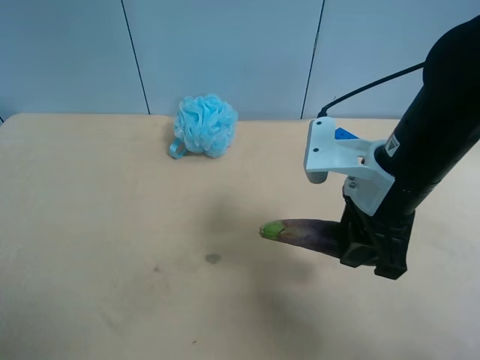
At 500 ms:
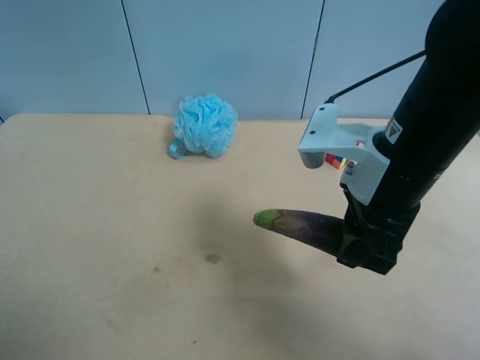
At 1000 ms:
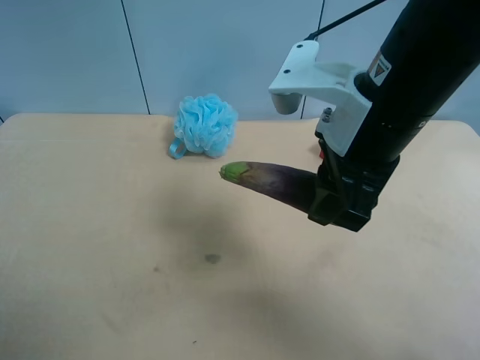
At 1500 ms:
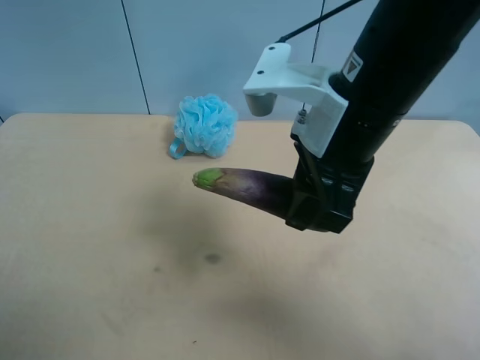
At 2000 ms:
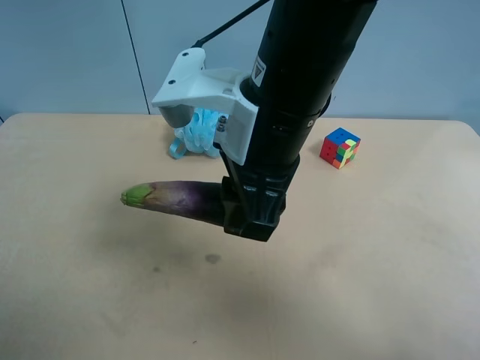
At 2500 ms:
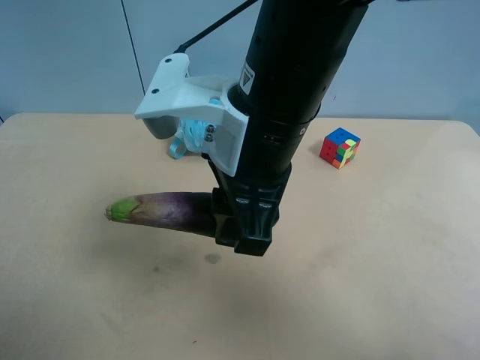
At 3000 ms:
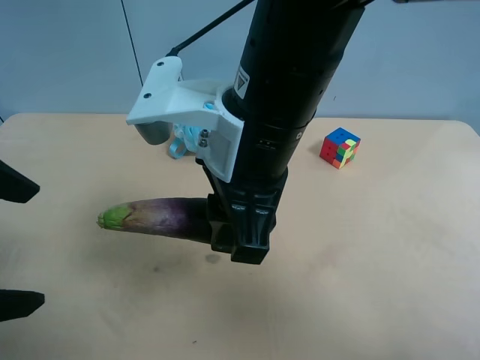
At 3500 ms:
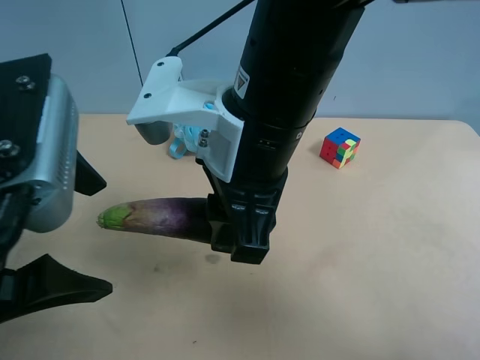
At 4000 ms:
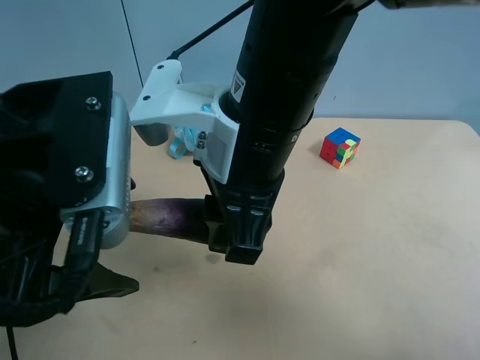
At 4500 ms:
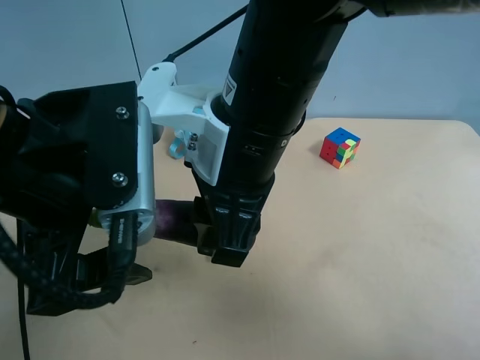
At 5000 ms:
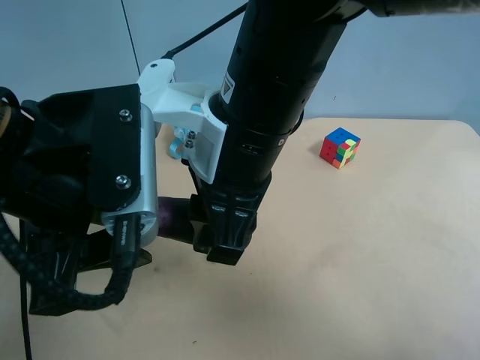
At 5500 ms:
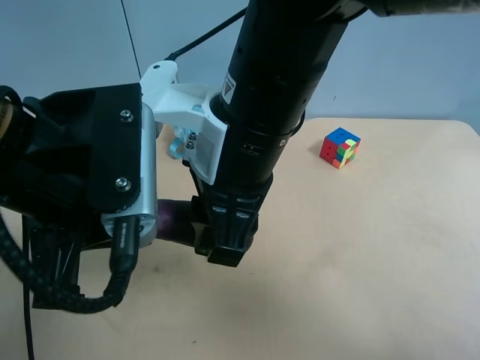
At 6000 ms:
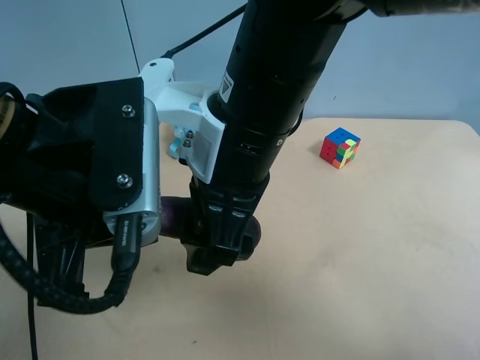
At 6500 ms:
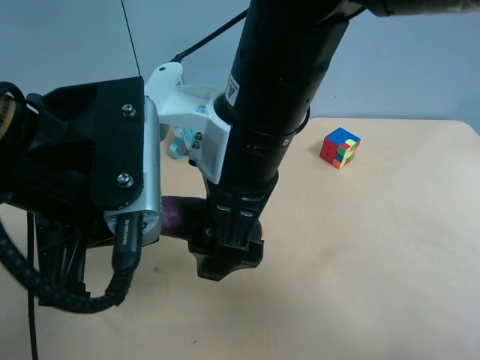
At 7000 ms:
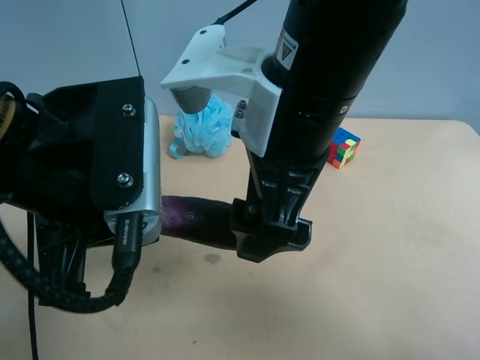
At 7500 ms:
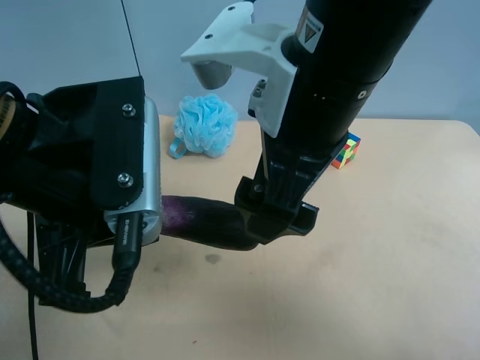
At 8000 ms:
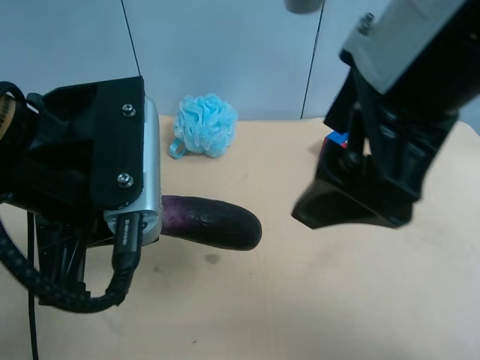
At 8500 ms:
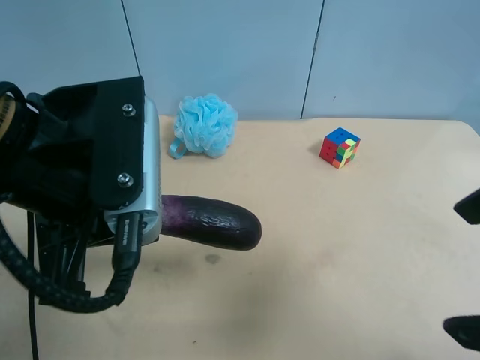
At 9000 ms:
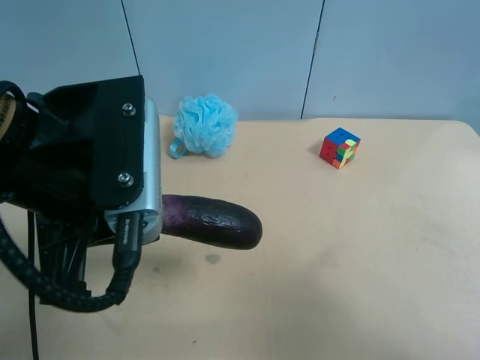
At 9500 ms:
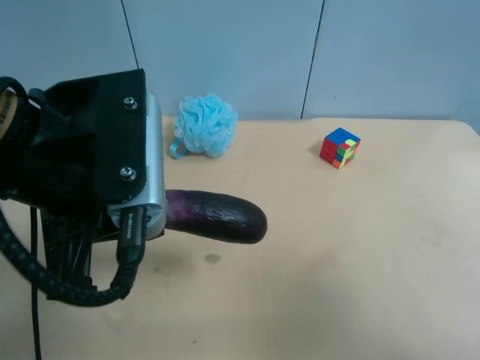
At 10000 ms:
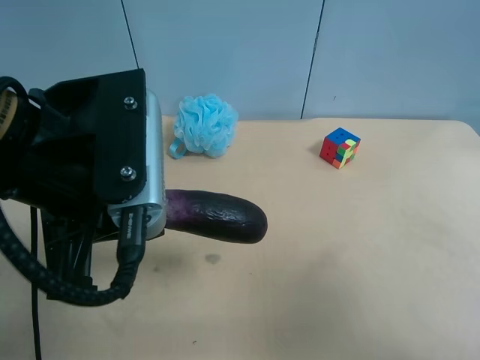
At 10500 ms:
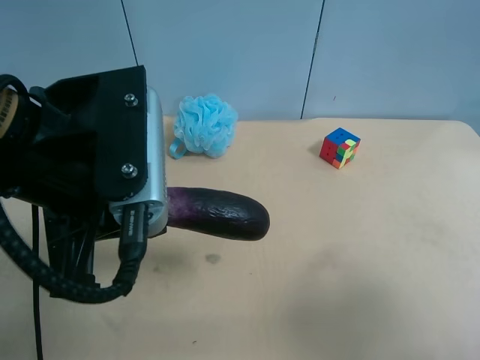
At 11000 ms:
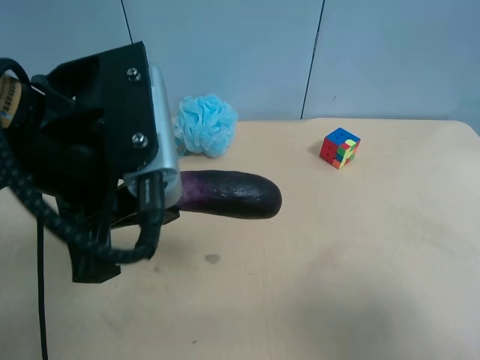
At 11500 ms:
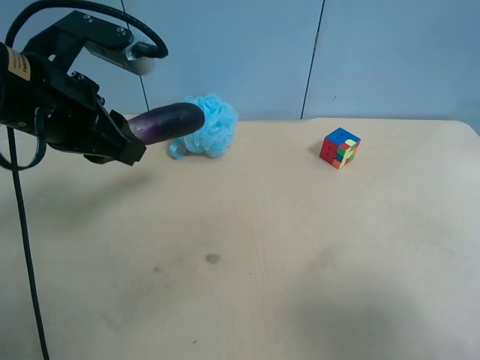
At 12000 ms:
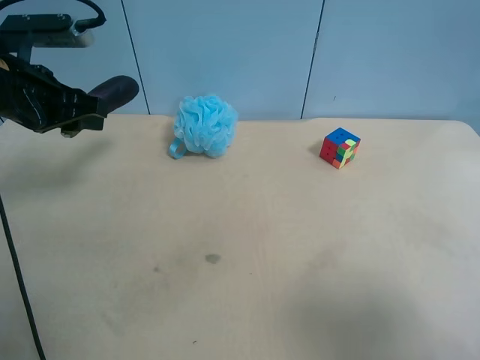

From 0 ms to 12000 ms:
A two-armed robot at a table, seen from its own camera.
Task of the whole recording: use the right gripper to pick up the item and transfer it from the right gripper to the left gripper.
From 0 ms to 2000 ms: The right gripper travels to the left and upward by some 15 cm, while the left gripper ends up some 5 cm from where it was.
From 2000 ms to 4000 ms: The left gripper shifts approximately 20 cm to the right and forward.
From 4000 ms to 6000 ms: The right gripper opens, while the left gripper closes.
From 6000 ms to 8000 ms: The right gripper heads to the right, upward and backward, covering approximately 15 cm.
From 8000 ms to 10000 ms: The right gripper is displaced to the right, backward and downward by some 20 cm.
From 10000 ms to 12000 ms: The left gripper shifts approximately 20 cm forward and to the left.

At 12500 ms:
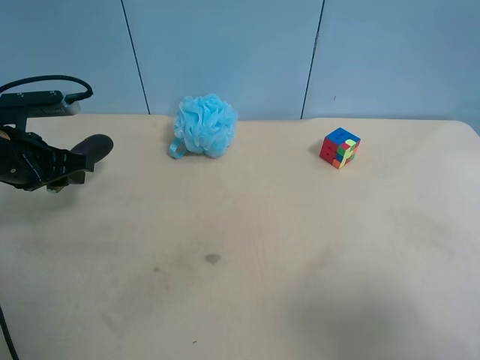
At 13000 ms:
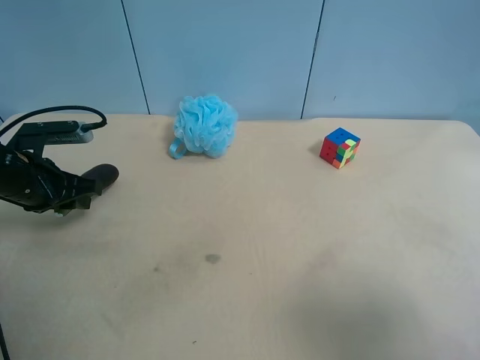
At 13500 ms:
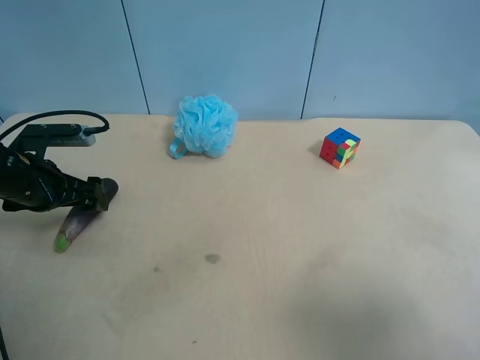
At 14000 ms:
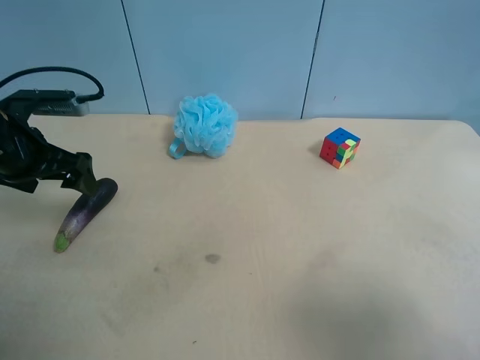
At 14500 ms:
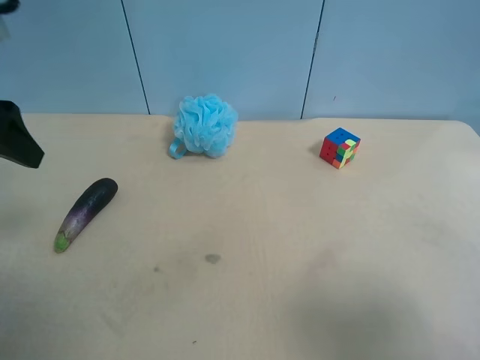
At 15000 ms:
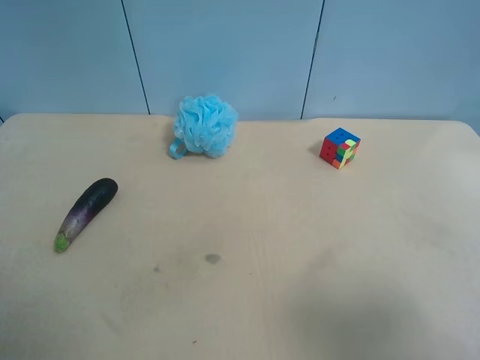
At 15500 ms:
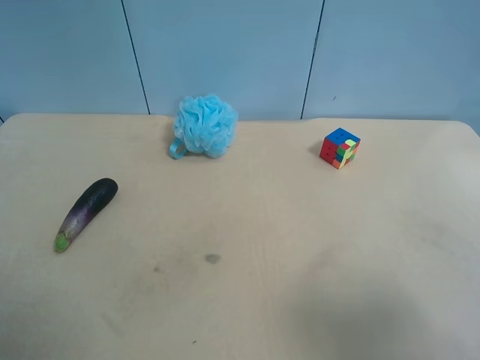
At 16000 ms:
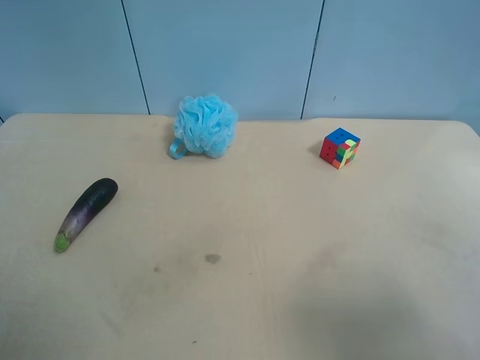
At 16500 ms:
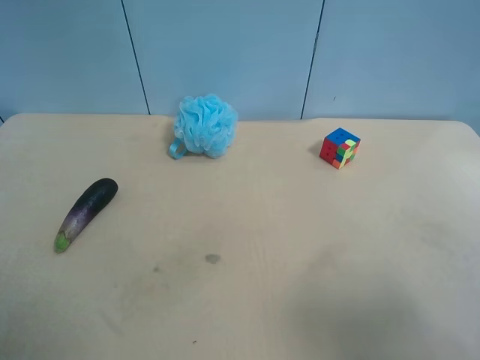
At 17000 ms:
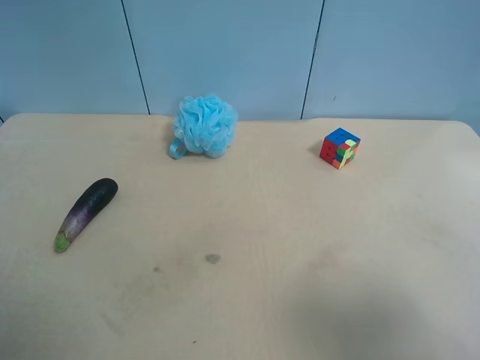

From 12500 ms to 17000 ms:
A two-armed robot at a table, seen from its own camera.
Task of the whole recording: use the right gripper to pick up the item and transfer it from the right gripper to the left gripper.
From 12500 ms to 14500 ms: The left gripper shifts roughly 15 cm upward and backward, and opens.
From 14500 ms to 17000 ms: The left gripper moves backward, about 20 cm.
